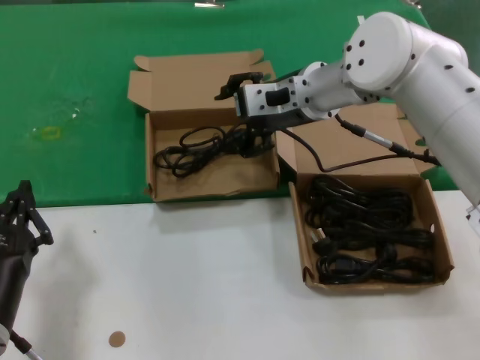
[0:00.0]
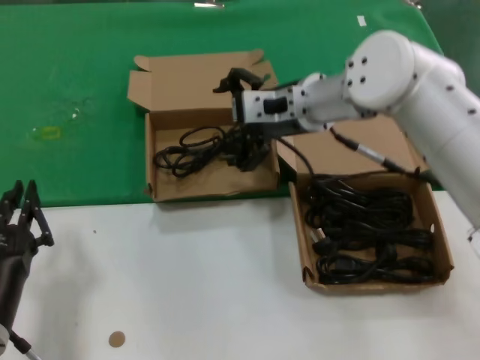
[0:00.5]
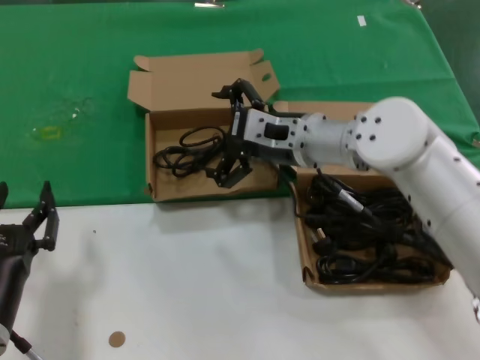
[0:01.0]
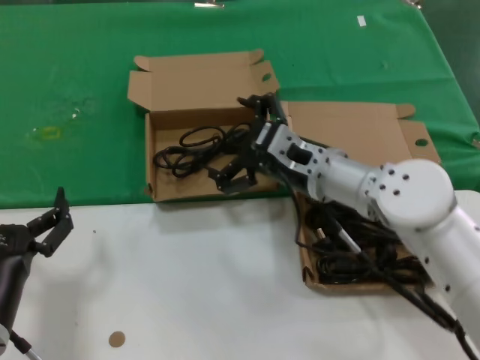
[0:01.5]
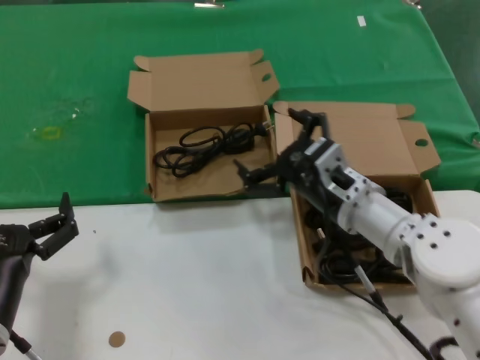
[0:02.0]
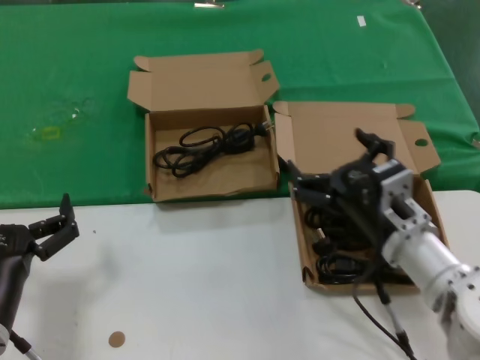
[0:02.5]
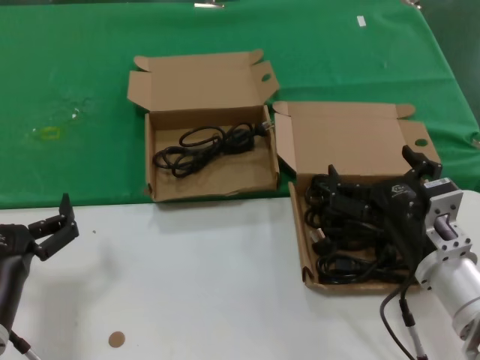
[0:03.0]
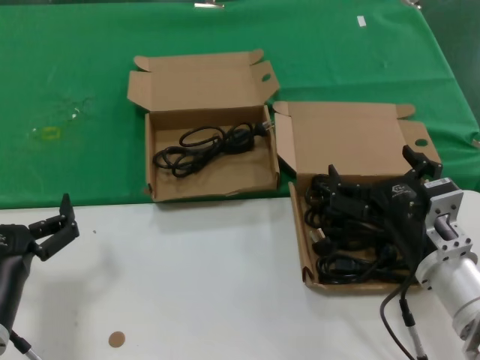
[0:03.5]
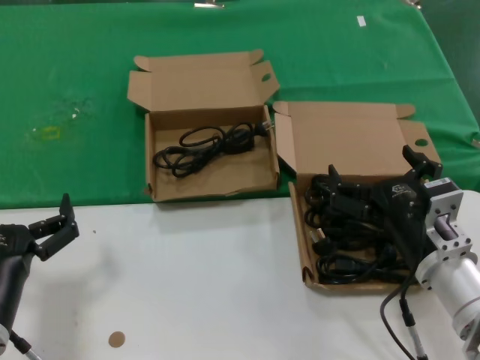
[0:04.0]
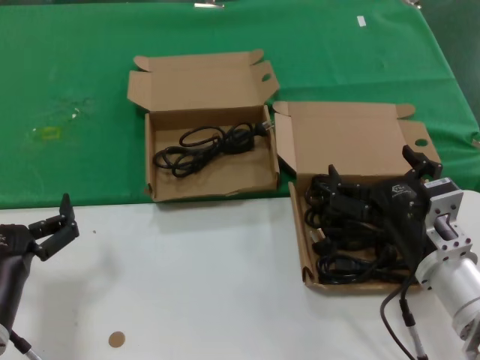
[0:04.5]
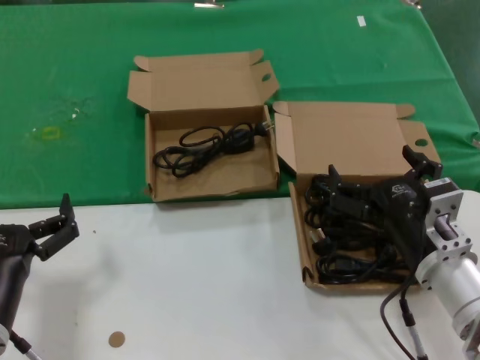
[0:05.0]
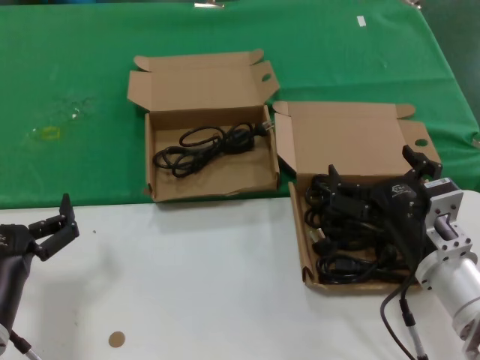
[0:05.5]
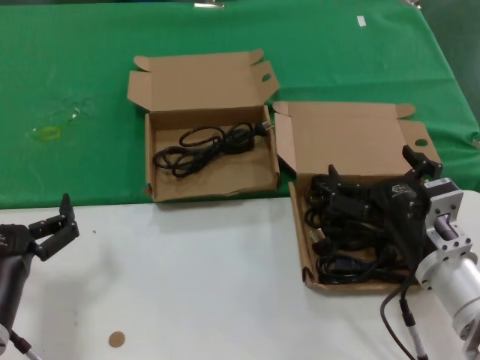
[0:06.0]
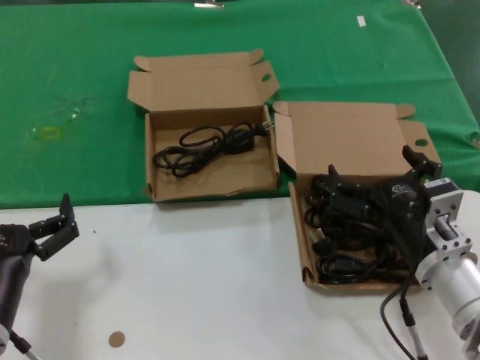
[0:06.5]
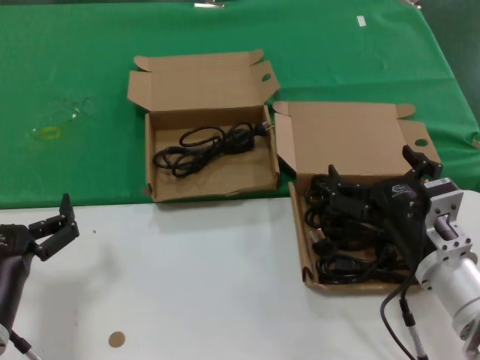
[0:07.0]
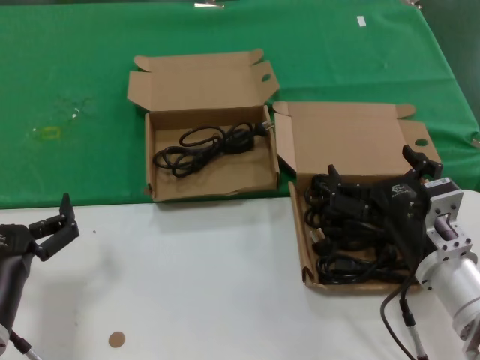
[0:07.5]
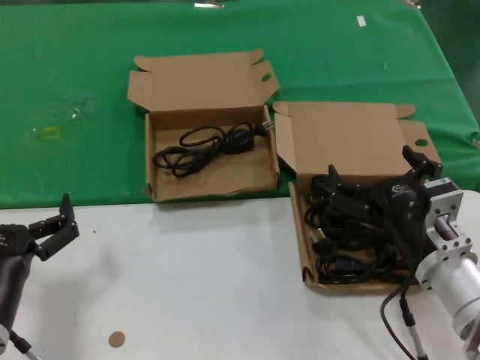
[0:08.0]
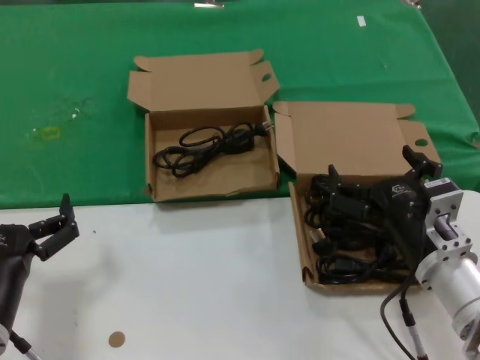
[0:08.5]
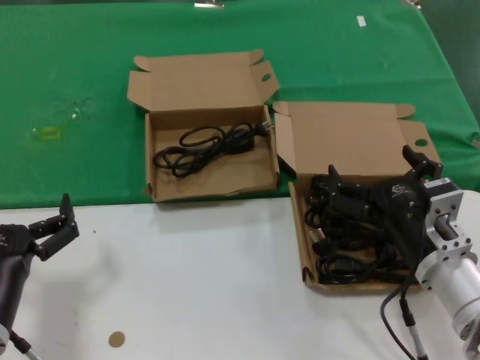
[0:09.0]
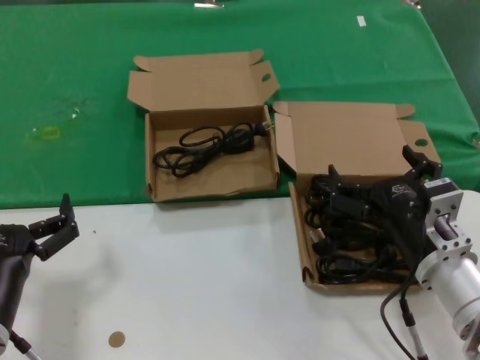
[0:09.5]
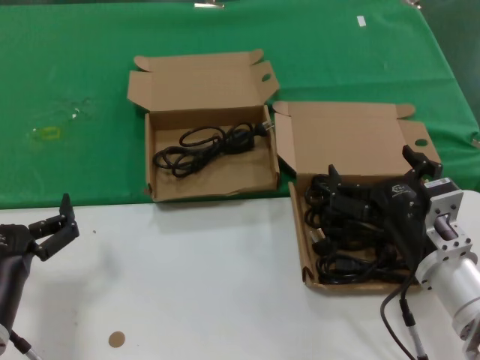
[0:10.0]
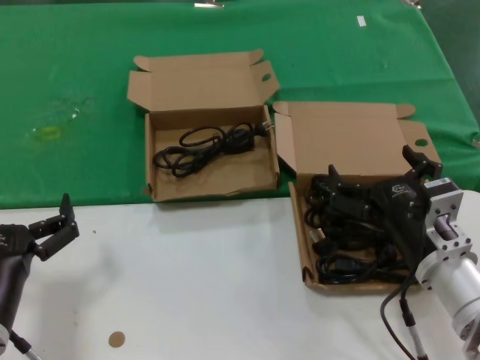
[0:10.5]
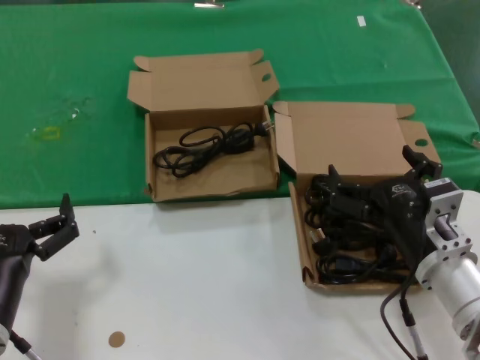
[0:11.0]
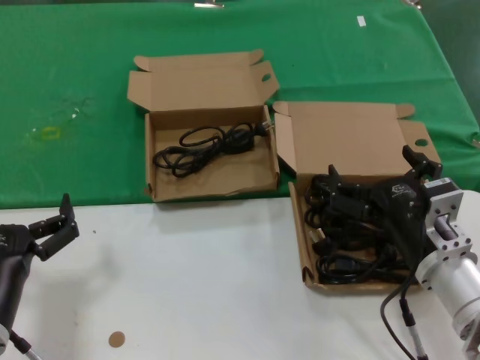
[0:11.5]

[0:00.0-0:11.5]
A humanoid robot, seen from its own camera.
Task of the whole recording: take the parts from the box containing them and put them into an empty box.
0:00.0 to 0:02.0: The right hand shifts roughly 20 cm downward and backward.
0:02.0 to 0:04.0: The right hand shifts approximately 10 cm backward and to the right.
0:04.0 to 0:11.5: Both hands stay about where they are.
